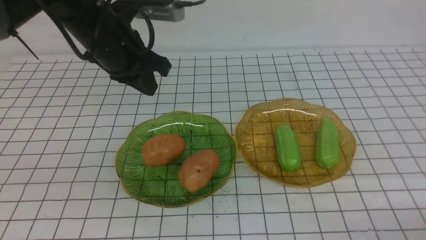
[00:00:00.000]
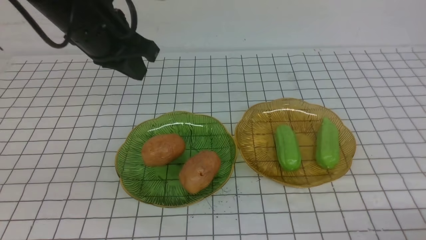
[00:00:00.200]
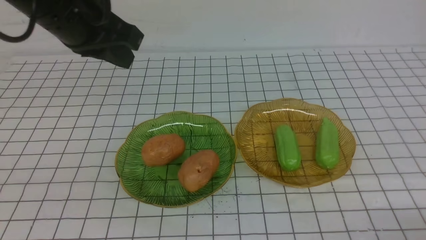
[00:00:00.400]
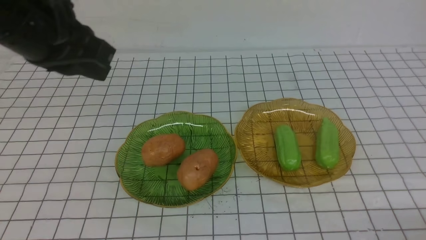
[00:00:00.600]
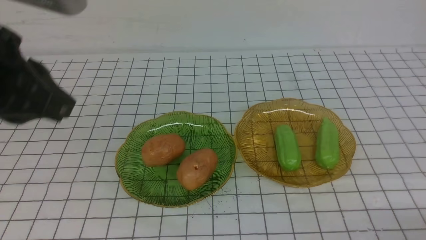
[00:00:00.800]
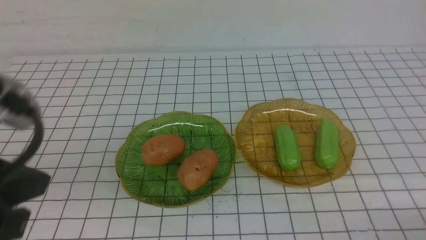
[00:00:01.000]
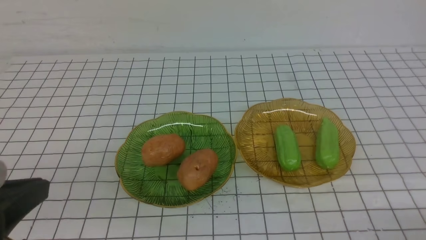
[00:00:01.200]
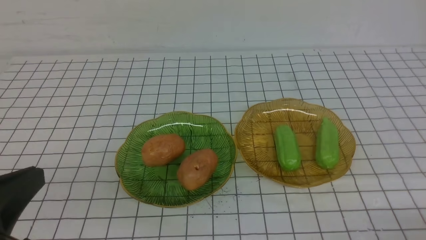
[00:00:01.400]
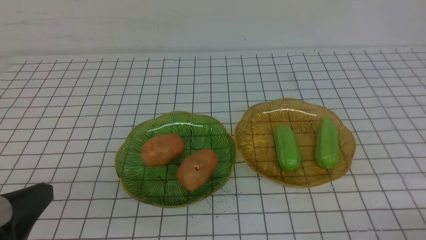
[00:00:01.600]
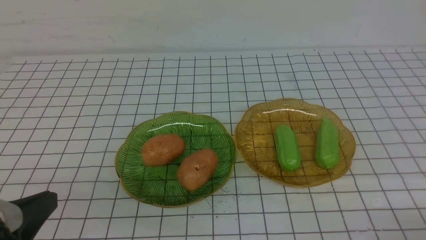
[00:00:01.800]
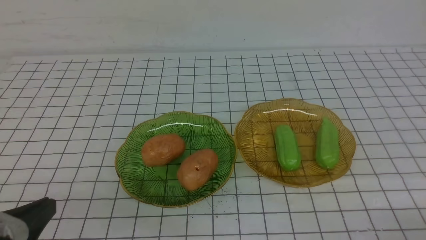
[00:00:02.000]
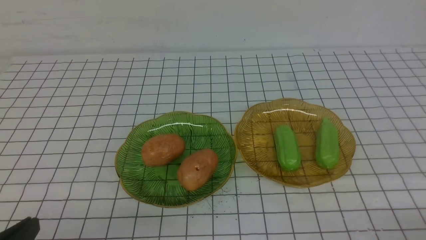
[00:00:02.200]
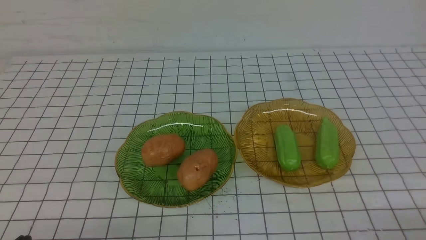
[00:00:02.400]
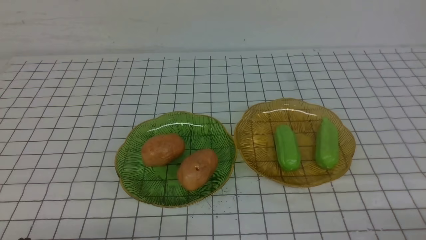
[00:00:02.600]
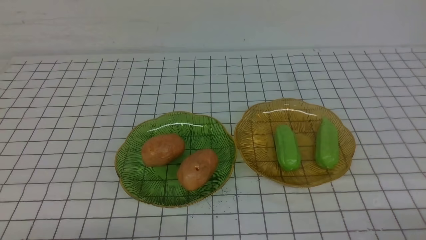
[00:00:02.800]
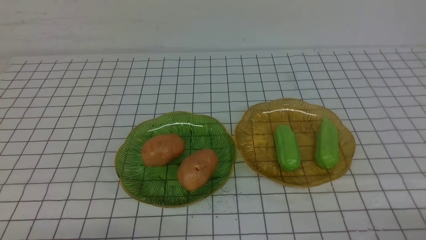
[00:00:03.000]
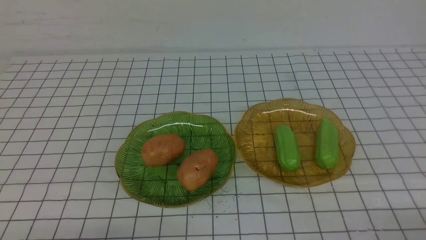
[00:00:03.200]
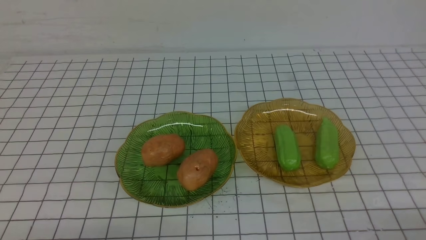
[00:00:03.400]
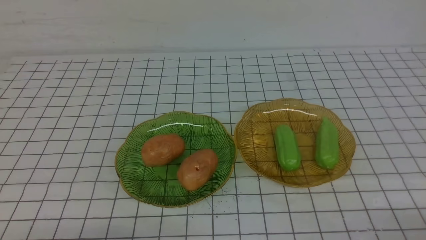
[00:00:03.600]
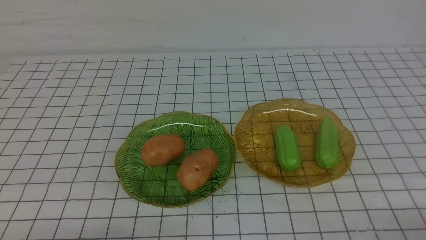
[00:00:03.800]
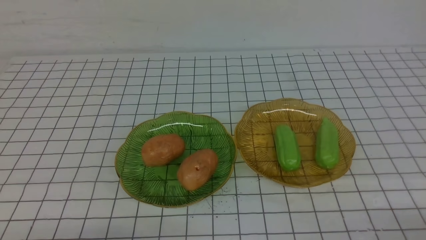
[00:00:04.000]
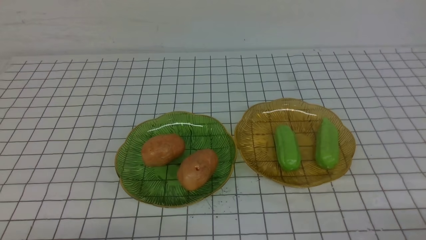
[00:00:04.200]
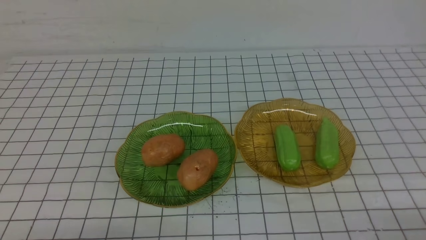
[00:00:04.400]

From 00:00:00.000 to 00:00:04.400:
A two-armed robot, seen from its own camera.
From 00:00:00.000 to 00:00:01.400: The left gripper travels backward by roughly 30 cm.
From 00:00:01.400 to 00:00:03.000: The left gripper is displaced downward by about 15 cm.
From 00:00:03.000 to 00:00:04.400: Both grippers stay about where they are.

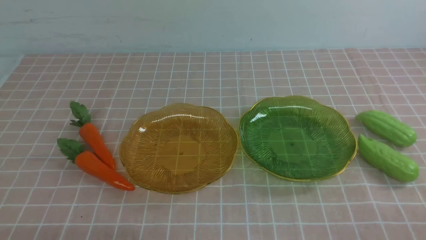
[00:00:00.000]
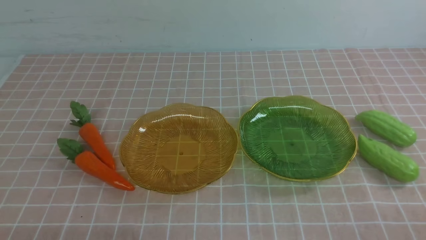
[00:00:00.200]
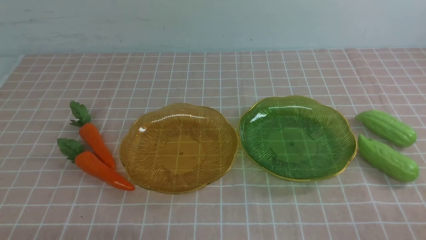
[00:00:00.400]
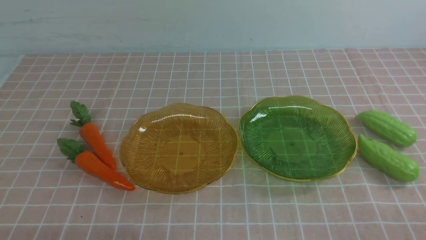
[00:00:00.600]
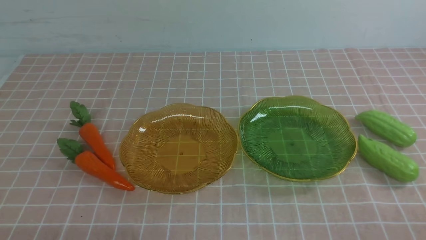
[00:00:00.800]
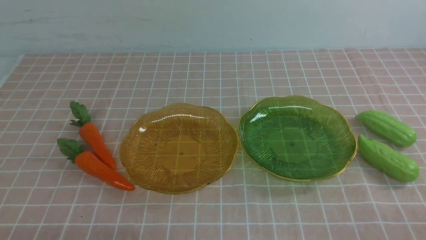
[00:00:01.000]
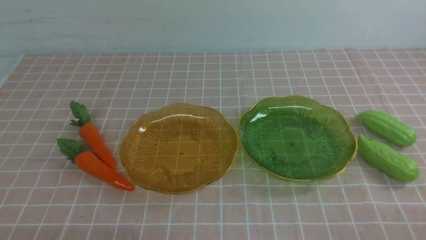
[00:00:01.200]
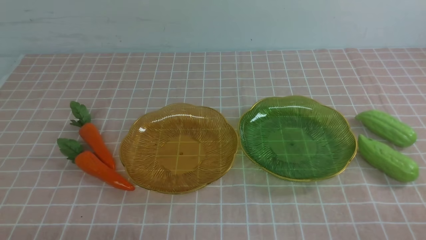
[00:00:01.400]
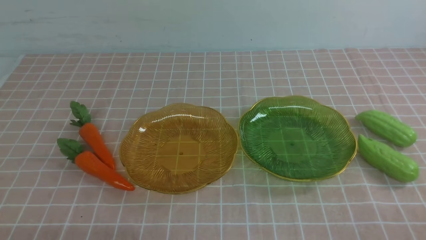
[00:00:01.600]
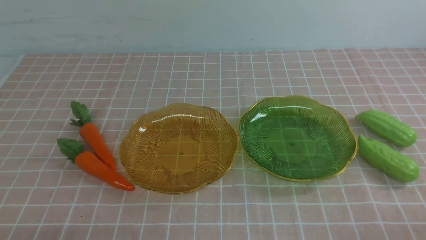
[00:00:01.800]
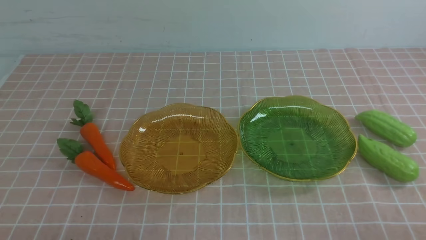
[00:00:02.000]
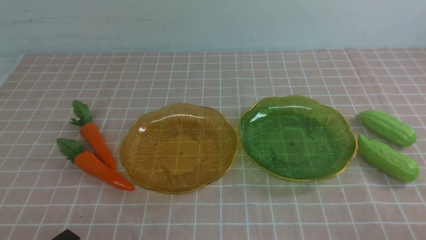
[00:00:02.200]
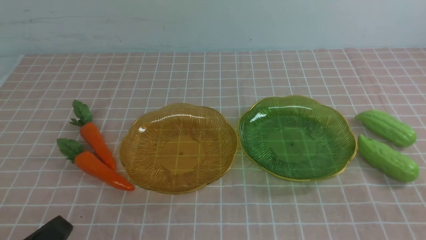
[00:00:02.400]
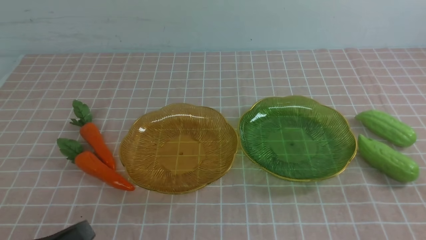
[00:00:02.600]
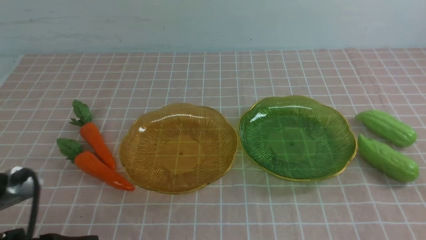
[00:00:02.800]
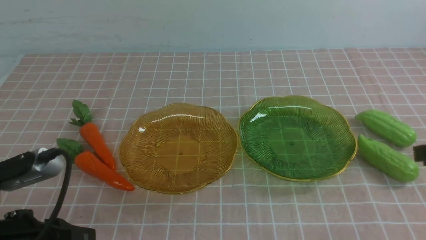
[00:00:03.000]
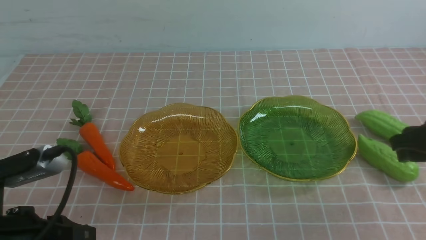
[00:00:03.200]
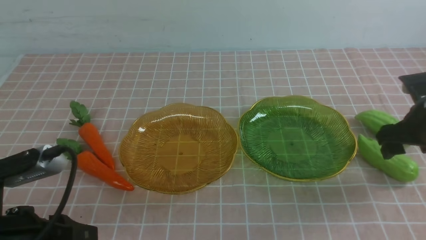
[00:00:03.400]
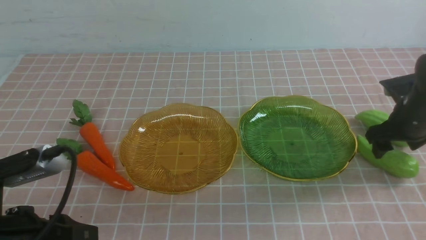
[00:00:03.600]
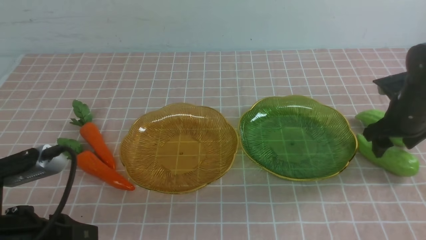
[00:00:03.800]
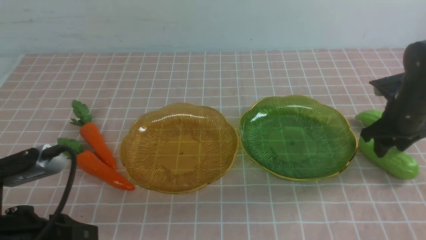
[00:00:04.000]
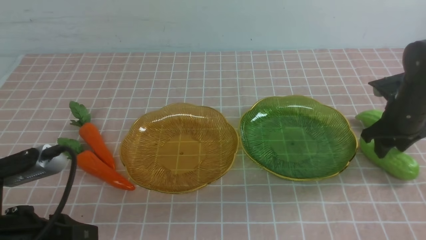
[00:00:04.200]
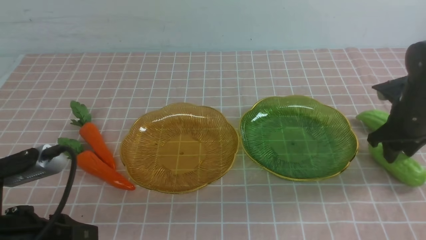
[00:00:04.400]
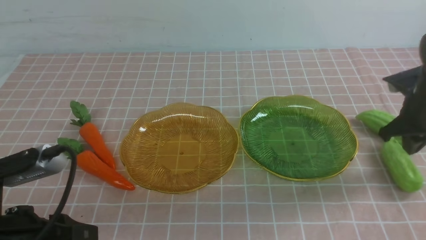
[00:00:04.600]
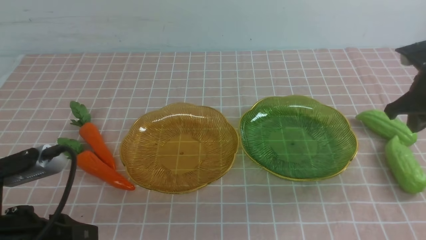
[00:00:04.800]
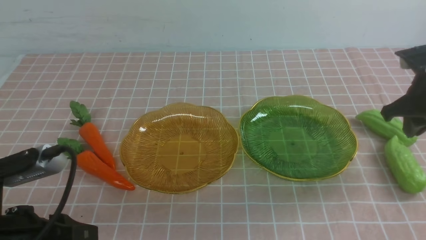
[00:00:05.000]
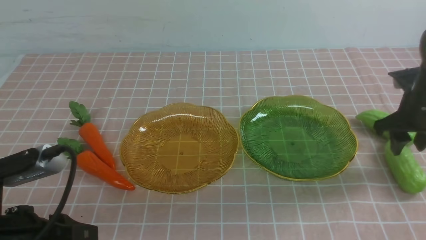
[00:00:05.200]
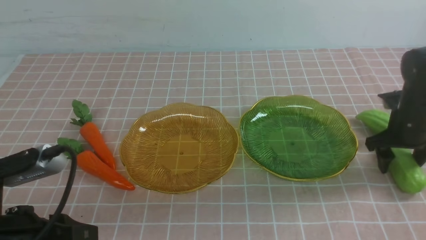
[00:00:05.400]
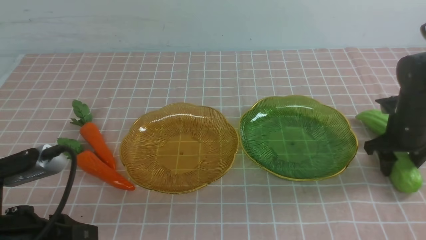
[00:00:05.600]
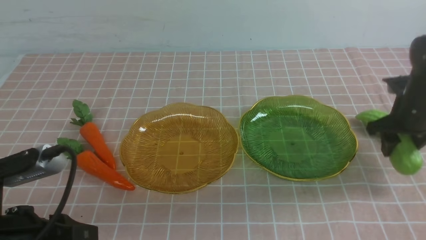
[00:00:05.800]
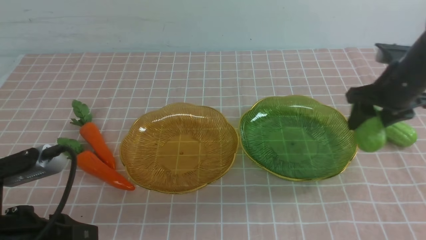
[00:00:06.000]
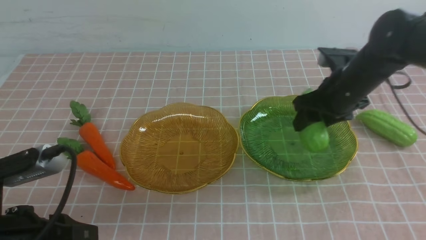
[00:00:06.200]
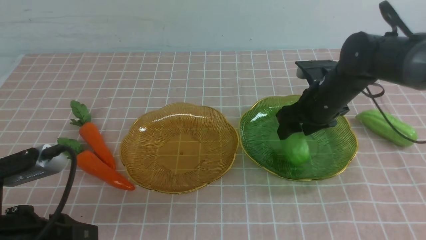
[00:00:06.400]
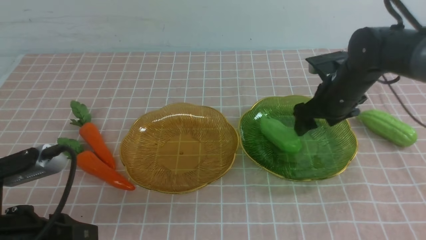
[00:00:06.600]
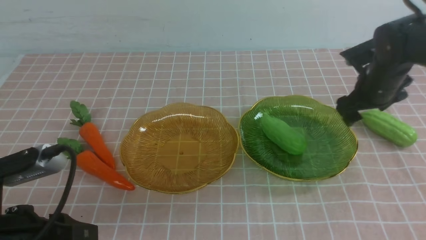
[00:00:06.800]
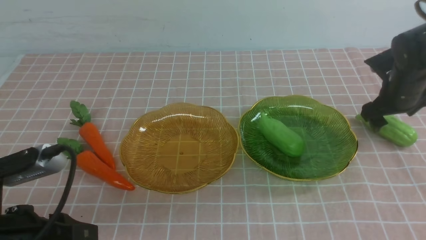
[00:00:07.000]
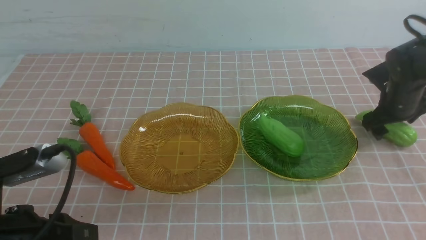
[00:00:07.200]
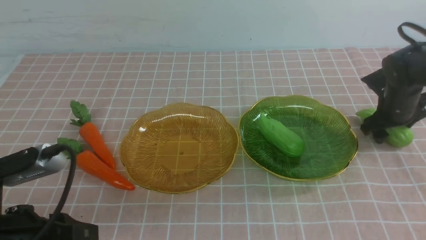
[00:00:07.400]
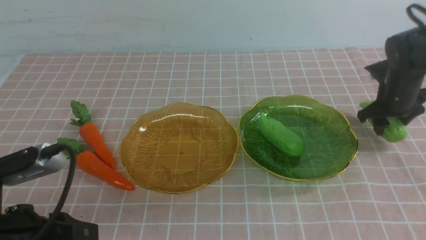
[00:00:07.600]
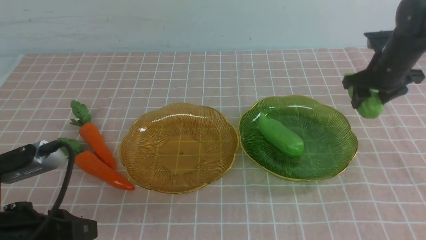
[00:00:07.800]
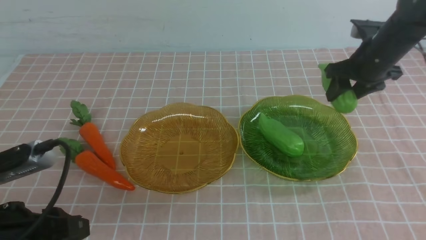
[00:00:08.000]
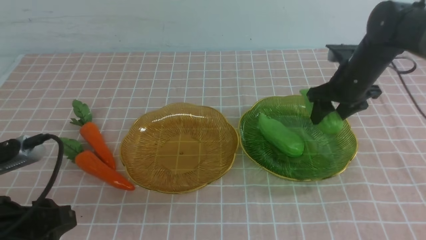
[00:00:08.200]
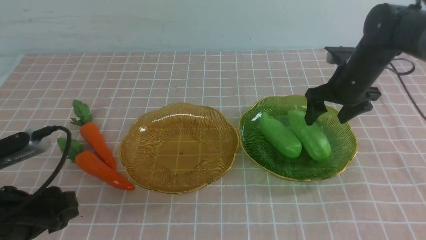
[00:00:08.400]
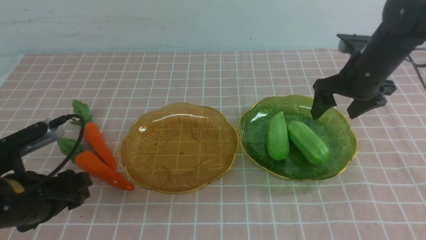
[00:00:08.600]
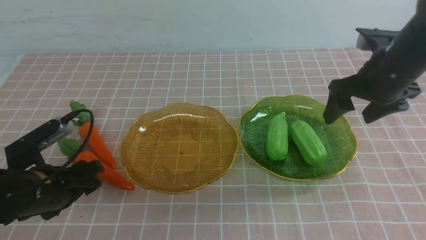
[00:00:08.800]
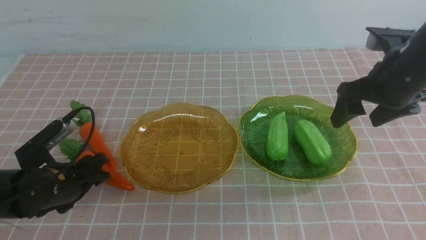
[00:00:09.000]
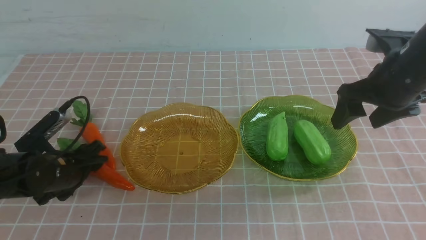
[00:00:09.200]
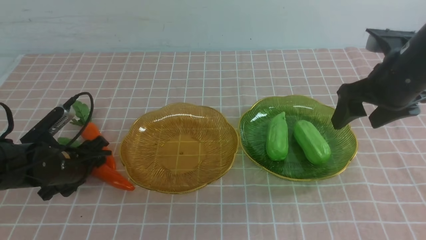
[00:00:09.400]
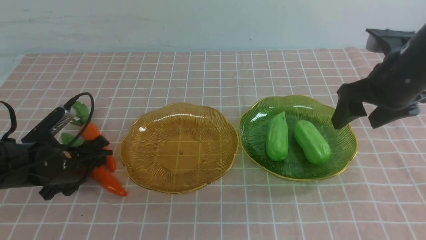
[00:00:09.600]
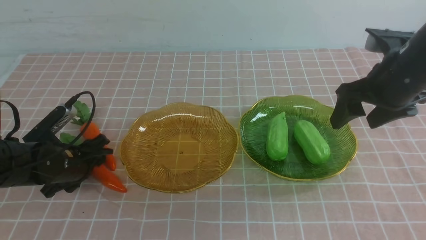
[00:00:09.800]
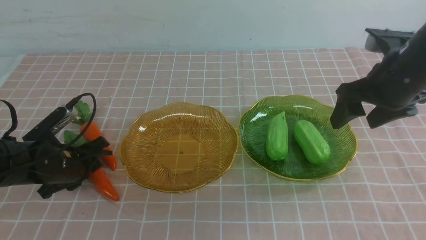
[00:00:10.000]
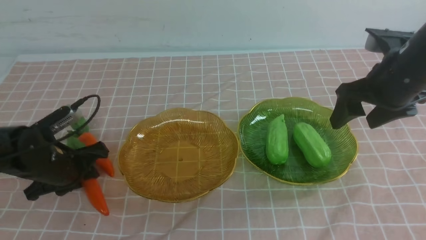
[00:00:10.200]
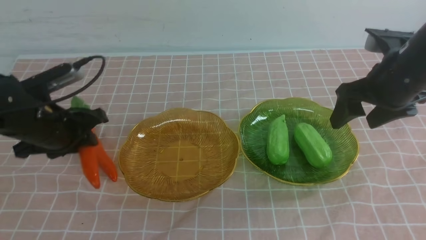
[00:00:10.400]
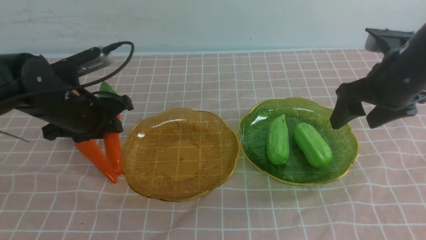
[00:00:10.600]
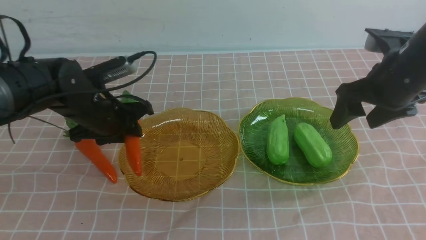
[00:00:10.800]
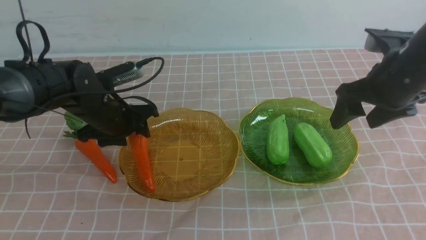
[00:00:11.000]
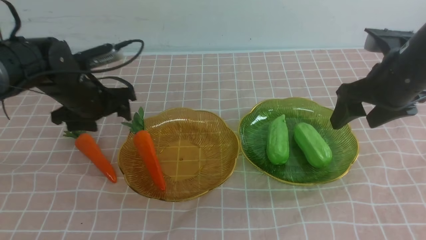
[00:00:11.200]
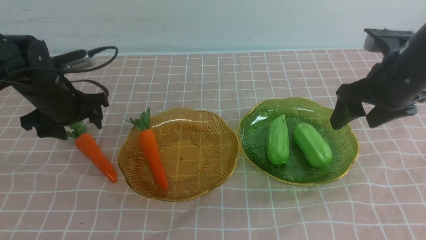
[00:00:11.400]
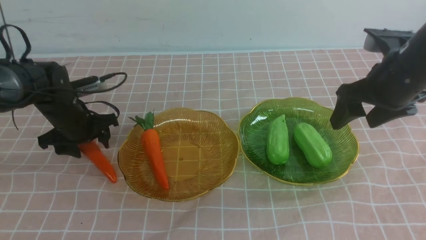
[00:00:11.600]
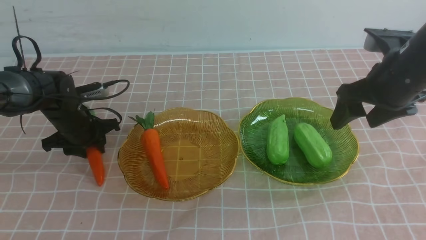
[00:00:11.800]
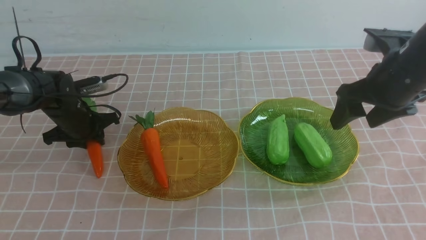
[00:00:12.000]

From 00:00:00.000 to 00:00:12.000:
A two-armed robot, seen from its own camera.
Step, from 00:00:00.000 to 00:00:08.200: use the right arm to grab a chayote and put it into the right plate.
From 00:00:01.600 to 00:00:03.000: The left gripper travels upward and forward by approximately 10 cm.
From 00:00:03.000 to 00:00:04.400: The right gripper heads forward and downward, covering approximately 10 cm.
From 00:00:04.400 to 00:00:06.000: The right gripper swings up and down, approximately 10 cm each way, with 2 reversals.
From 00:00:06.000 to 00:00:07.600: The right gripper travels forward by roughly 5 cm, travels to the left and back again, approximately 10 cm each way, and opens and closes again.
From 00:00:07.600 to 00:00:09.000: The left gripper heads forward and downward, covering some 20 cm, and opens up. The right gripper is displaced backward, upward and to the left by some 15 cm.
From 00:00:09.000 to 00:00:10.400: The left gripper travels upward, forward and to the right by about 10 cm, and closes, then reopens.
From 00:00:10.400 to 00:00:12.000: The right gripper closes its fingers; the left gripper closes.
